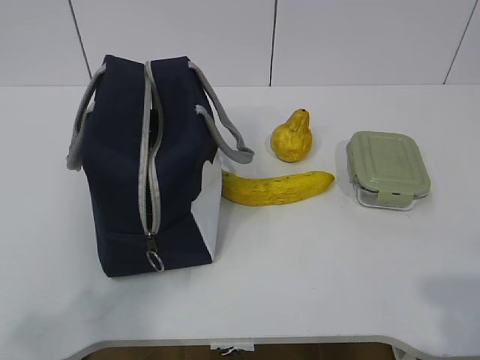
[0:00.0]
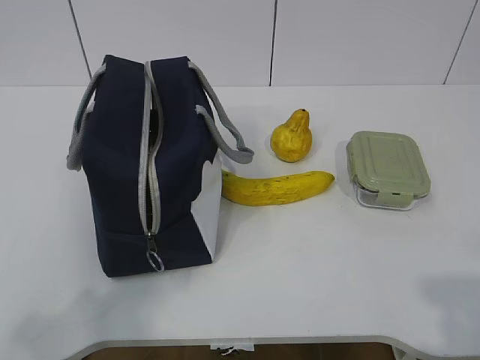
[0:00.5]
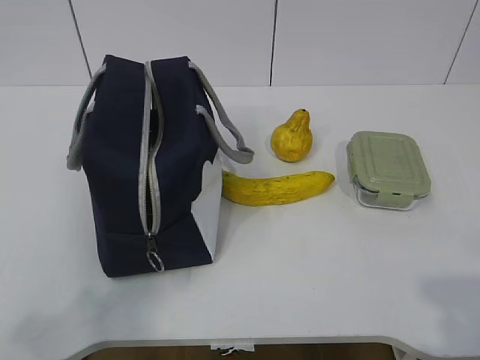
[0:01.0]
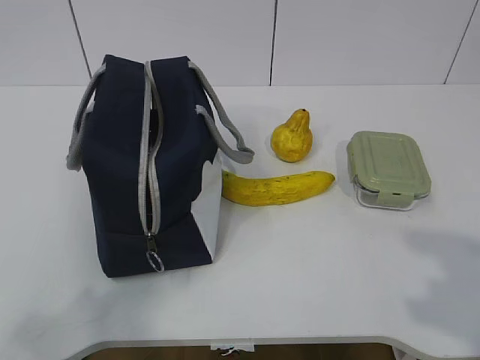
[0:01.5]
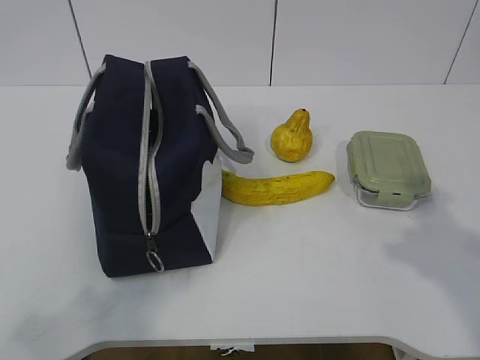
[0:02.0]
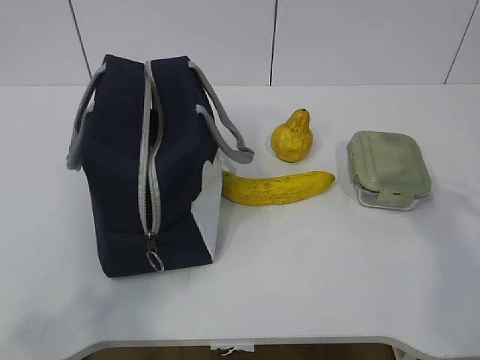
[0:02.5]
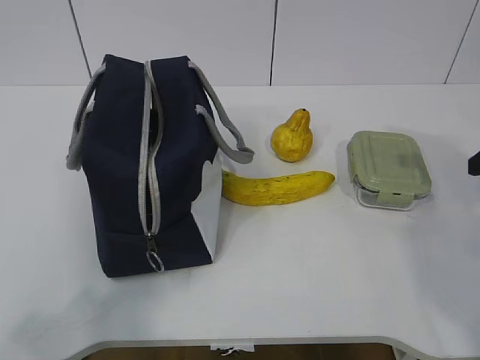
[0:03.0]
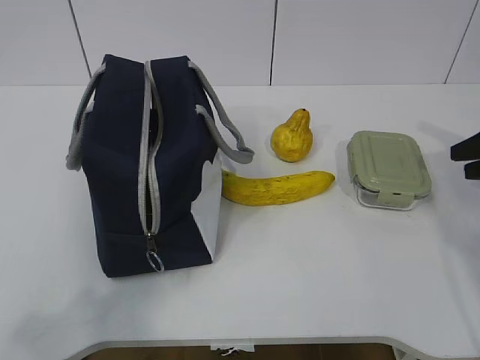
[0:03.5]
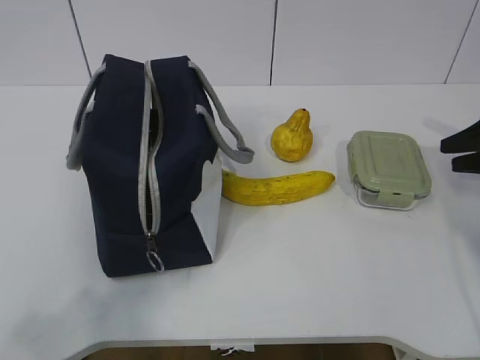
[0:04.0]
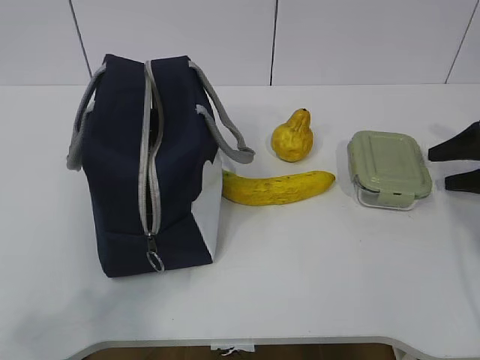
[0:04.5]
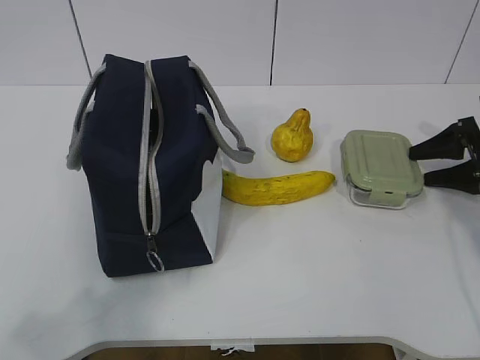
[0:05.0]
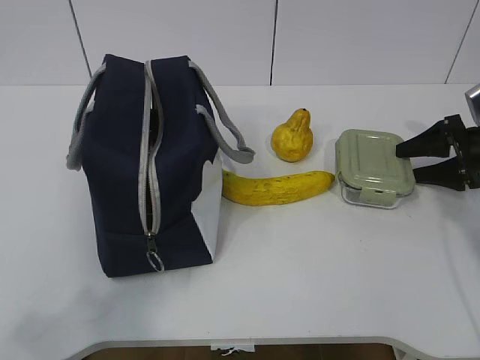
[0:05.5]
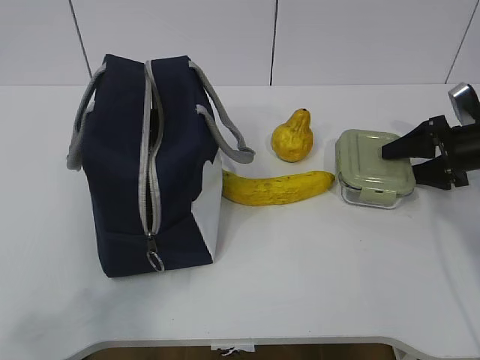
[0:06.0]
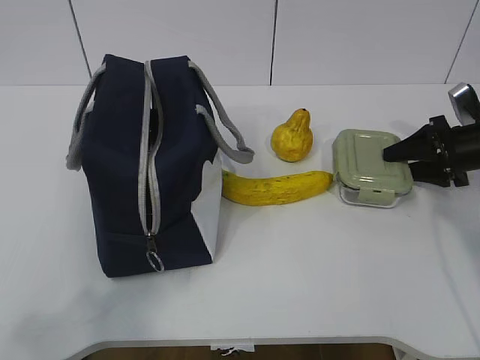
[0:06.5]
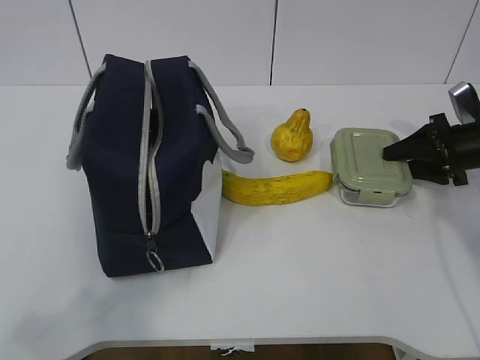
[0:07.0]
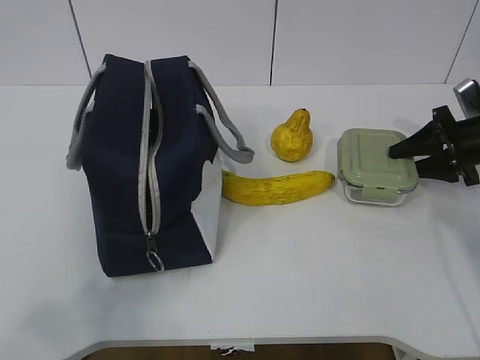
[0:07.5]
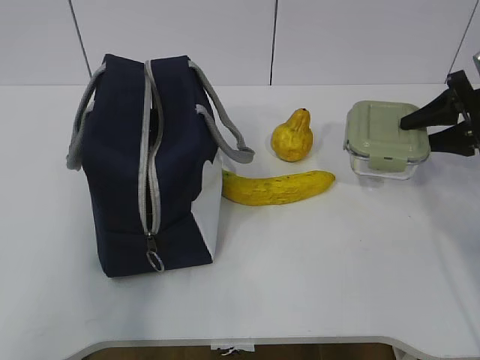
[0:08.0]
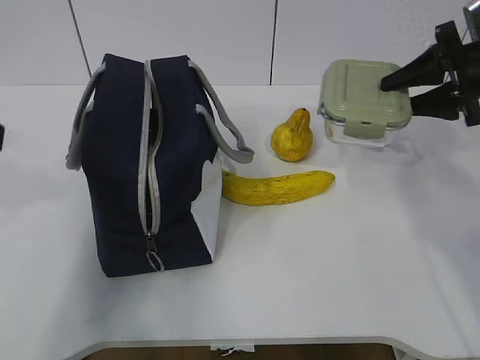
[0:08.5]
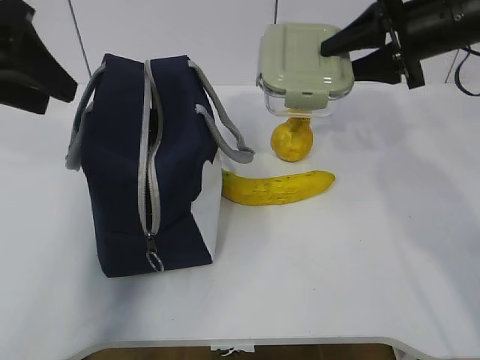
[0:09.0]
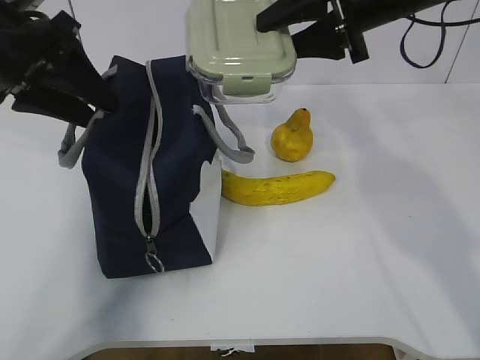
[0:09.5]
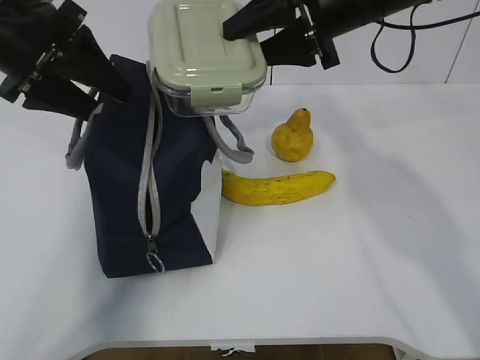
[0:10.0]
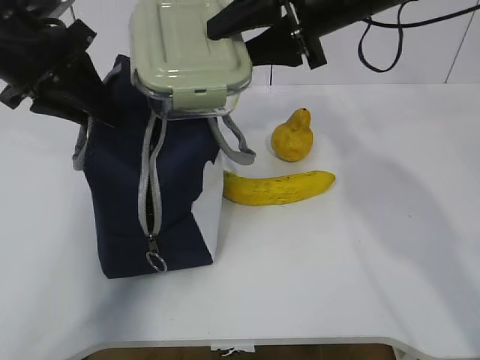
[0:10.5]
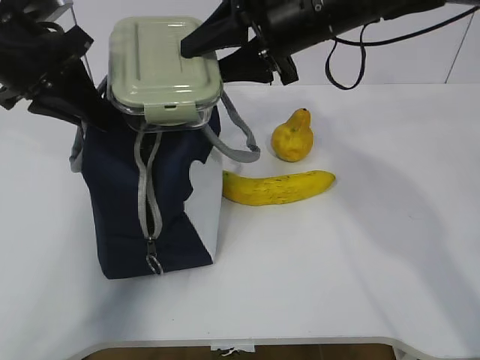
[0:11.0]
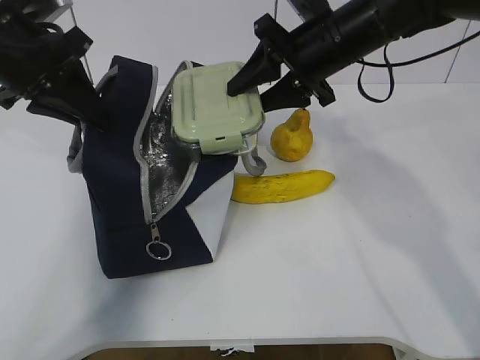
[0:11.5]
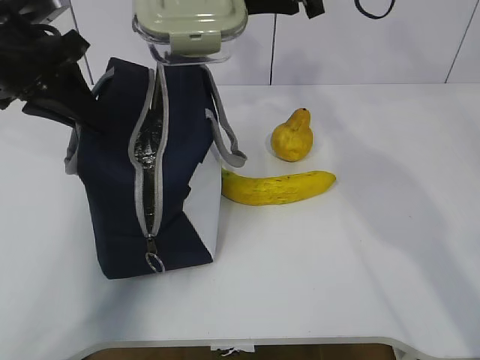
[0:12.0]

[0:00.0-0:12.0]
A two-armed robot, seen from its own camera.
Step, 0:00.0 to 0:06.5: Grasp the box with the right gripper.
0:02.0 to 0:04.0: The right gripper travels forward, to the right and downward by some 30 cm.
0:04.0 to 0:06.0: The right gripper ends up about 10 cm from where it was.
0:06.0 to 0:08.0: The right gripper goes roughly 5 cm upward, and closes.
0:08.0 to 0:10.0: The left gripper travels forward by roughly 30 cm, and opens. The right gripper travels to the left and upward by some 25 cm.
0:10.0 to 0:12.0: The left gripper closes up, while the right gripper changes place by about 5 cm.

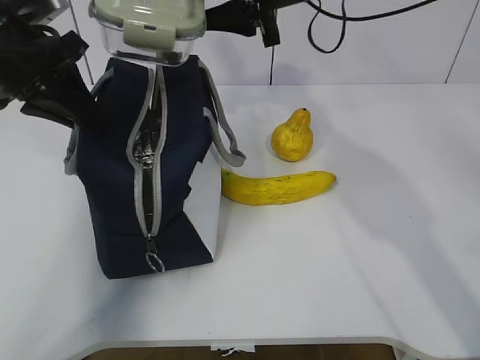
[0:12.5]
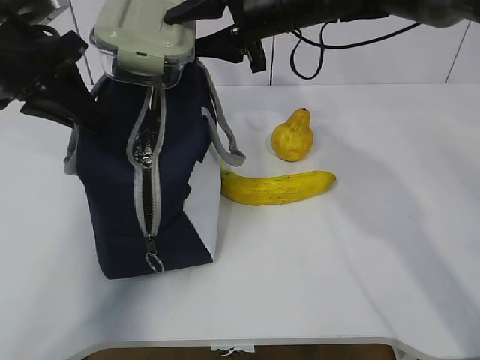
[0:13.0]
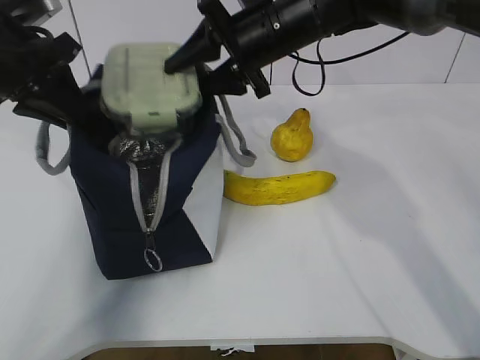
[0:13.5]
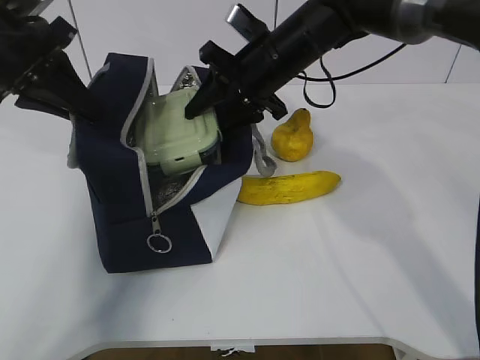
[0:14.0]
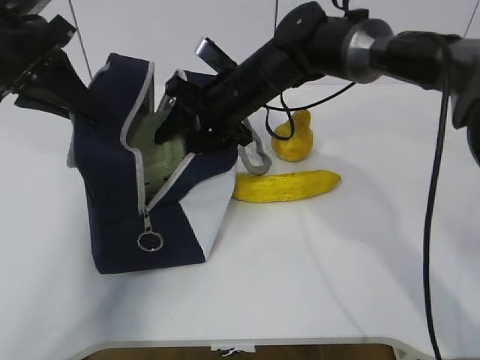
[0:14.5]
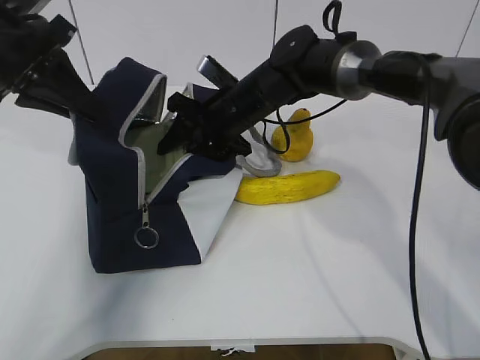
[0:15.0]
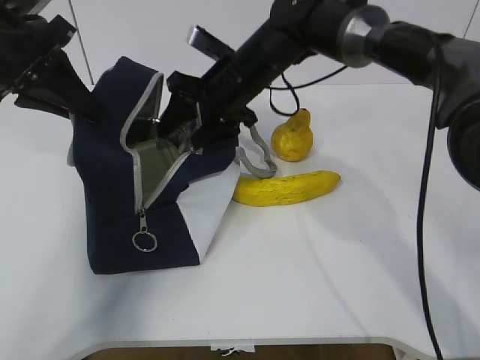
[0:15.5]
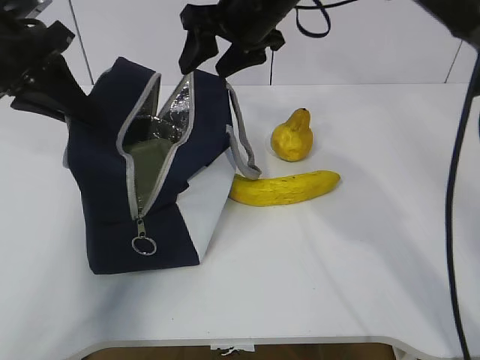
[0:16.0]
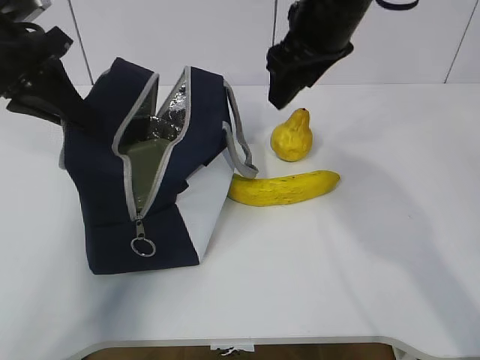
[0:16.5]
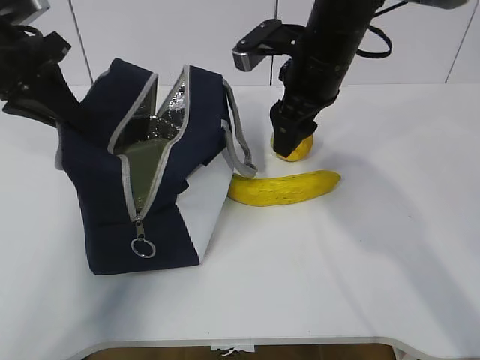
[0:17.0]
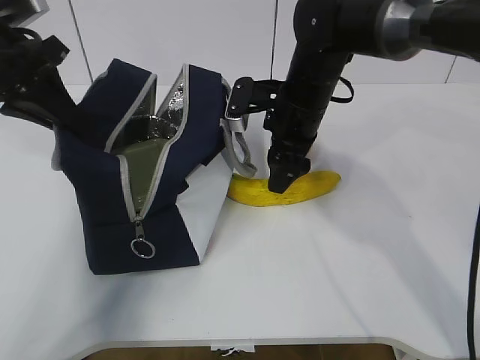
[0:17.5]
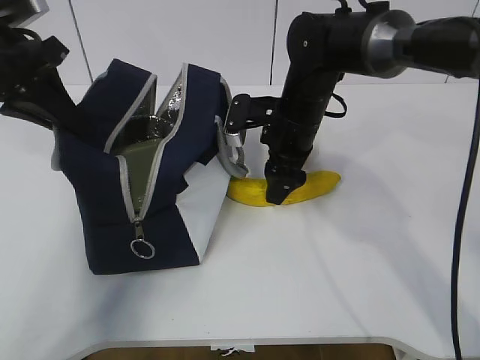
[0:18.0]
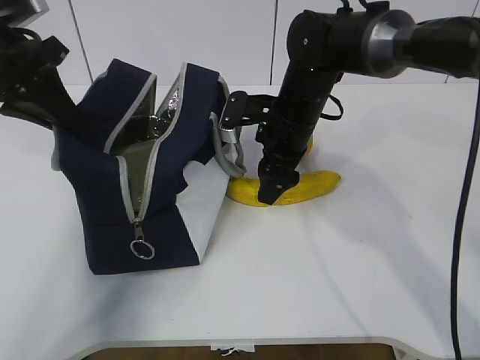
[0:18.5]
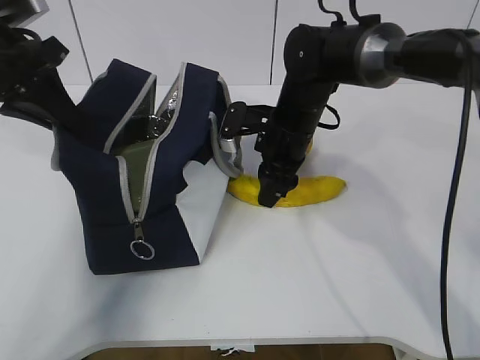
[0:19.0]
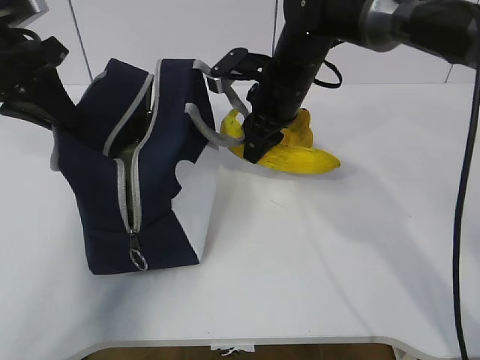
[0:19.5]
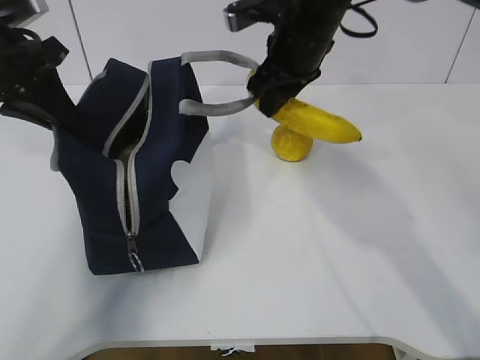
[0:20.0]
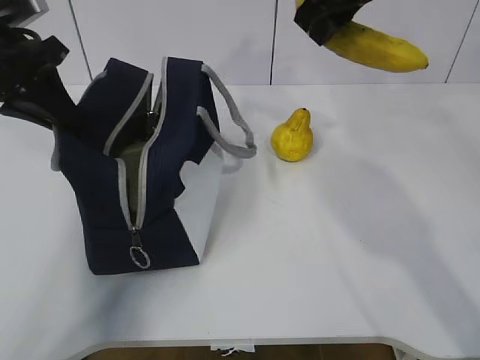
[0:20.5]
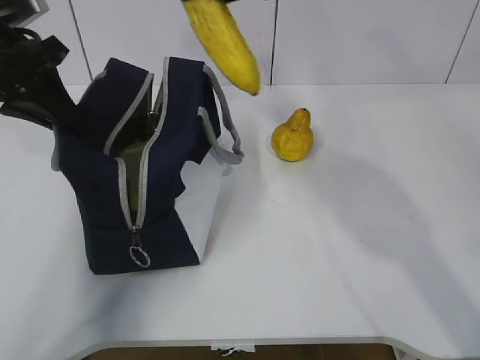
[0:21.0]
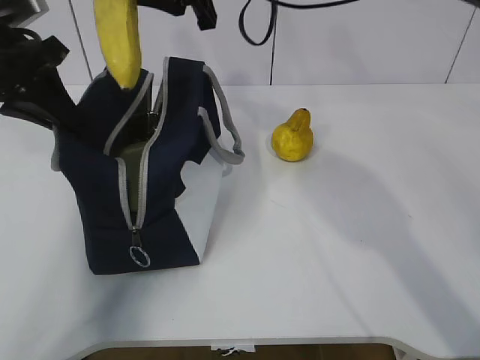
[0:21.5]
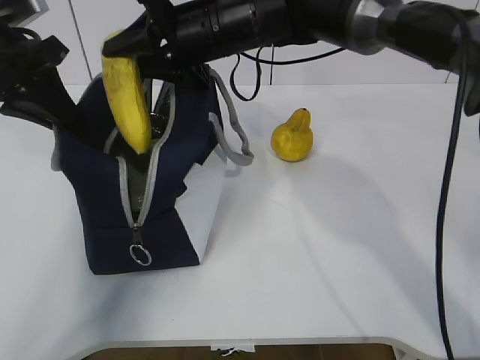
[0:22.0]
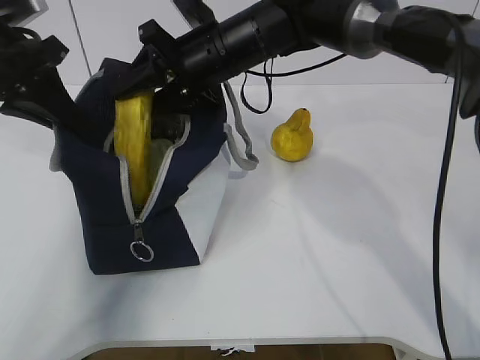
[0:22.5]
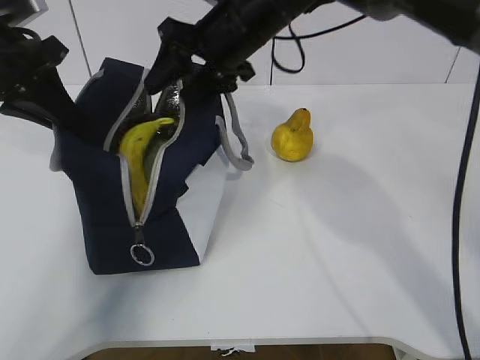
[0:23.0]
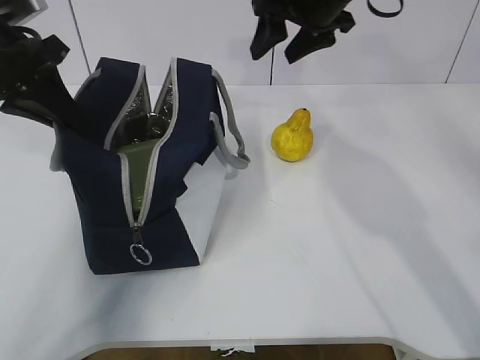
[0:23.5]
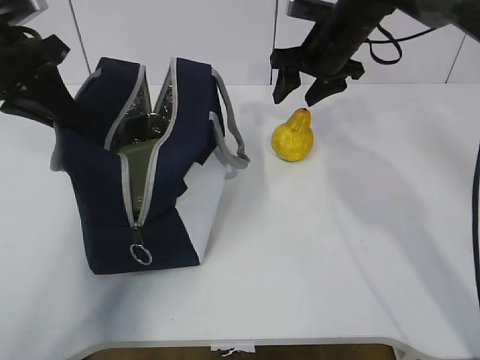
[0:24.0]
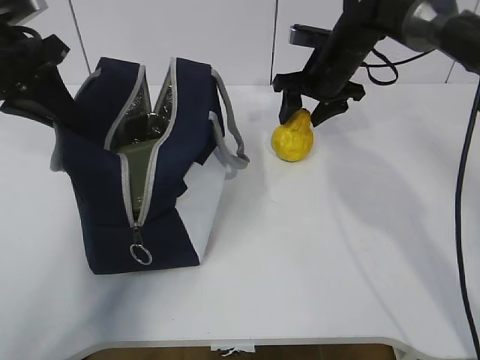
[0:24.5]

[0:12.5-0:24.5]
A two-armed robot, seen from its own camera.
Step, 0:12.5 to 0:15.5: Place the box into the package with the right gripper.
Step, 0:16.0 to 0:19.0: Grasp the banana with the right gripper.
Step, 0:19.5 to 0:23.0: Place the banana into the package with the right gripper.
0:12.5 to 0:14.5: The right gripper shifts roughly 15 cm downward and to the left.
0:14.5 to 0:16.5: The right gripper travels upward and to the right by about 15 cm.
0:16.5 to 0:18.5: The right gripper heads downward, covering roughly 15 cm.
0:18.5 to 0:20.5: The right gripper goes roughly 20 cm upward, and closes up.
0:20.5 to 0:22.5: The right gripper goes about 15 cm to the left and downward.
0:22.5 to 0:24.5: The right gripper goes about 15 cm to the right and forward.

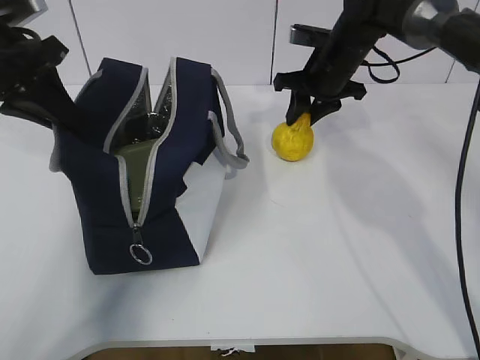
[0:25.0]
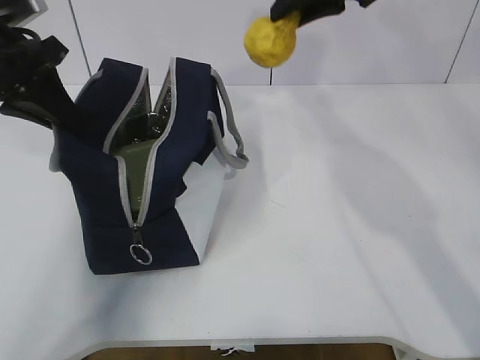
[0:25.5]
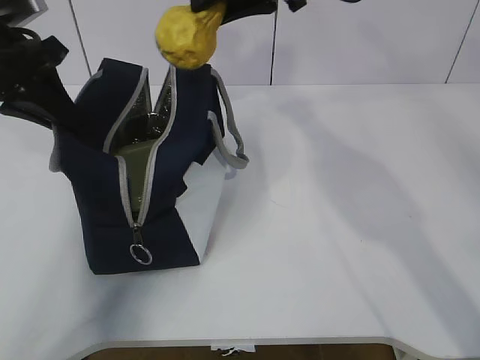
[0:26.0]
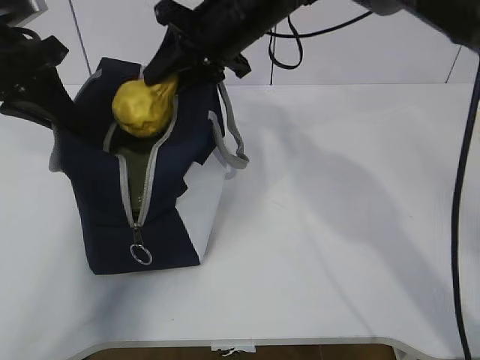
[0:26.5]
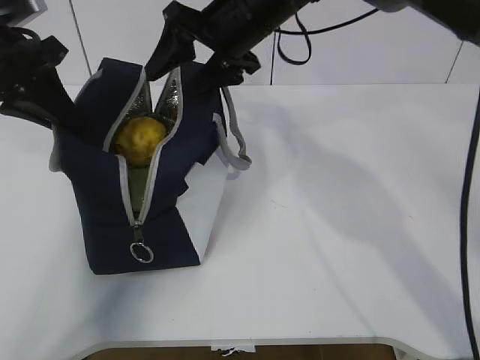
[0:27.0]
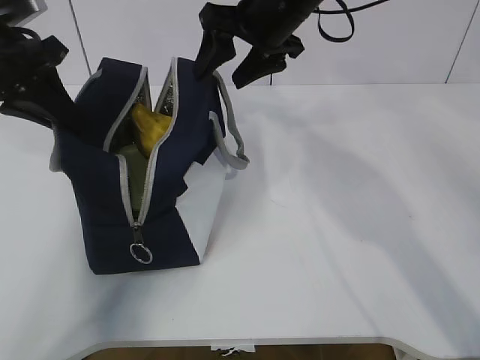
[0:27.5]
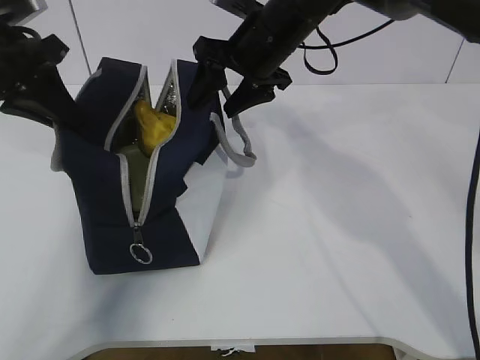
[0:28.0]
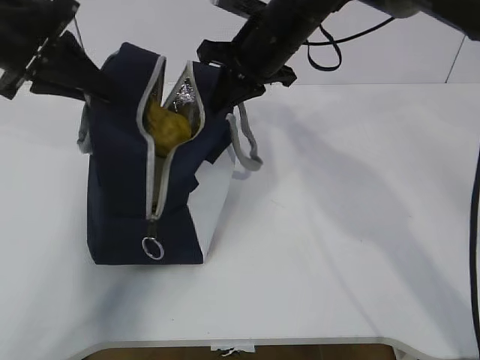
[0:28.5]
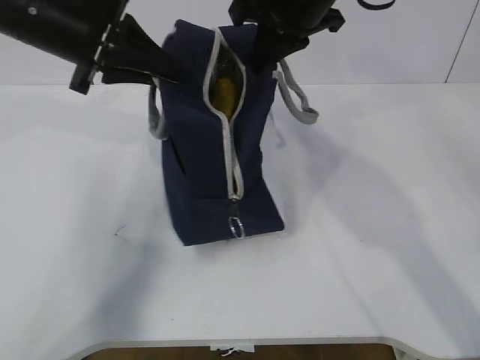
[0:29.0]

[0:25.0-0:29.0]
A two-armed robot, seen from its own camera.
Step, 0:25.0 to 0:27.0: Place the pear into the package with the right gripper.
0:25.0 to 0:27.0: The right gripper is displaced to the left, upward and backward by some 15 cm, and opens.
0:27.0 to 0:29.0: Both grippers move to the right, approximately 5 cm. The right gripper closes up.
